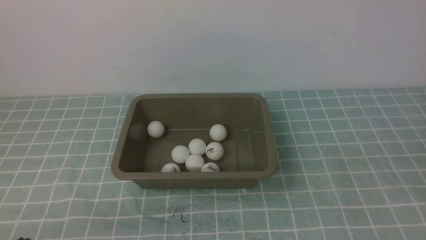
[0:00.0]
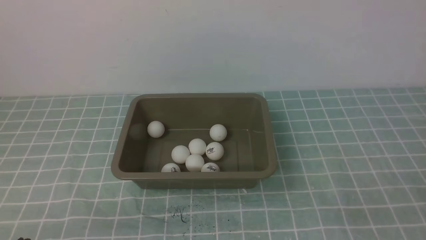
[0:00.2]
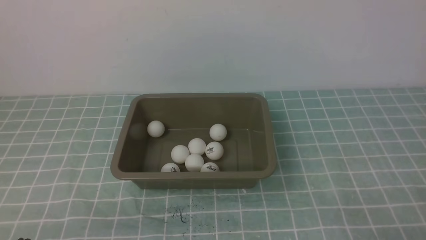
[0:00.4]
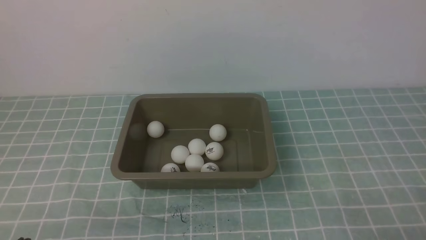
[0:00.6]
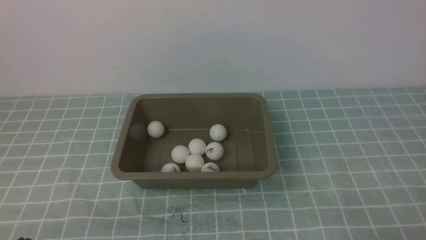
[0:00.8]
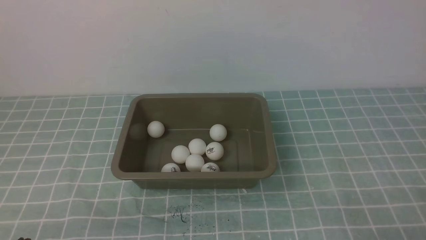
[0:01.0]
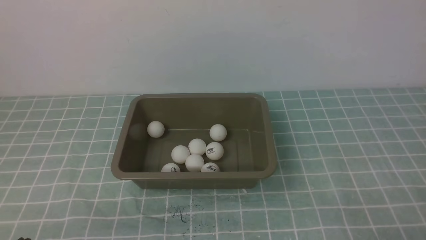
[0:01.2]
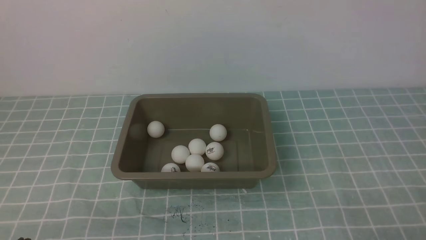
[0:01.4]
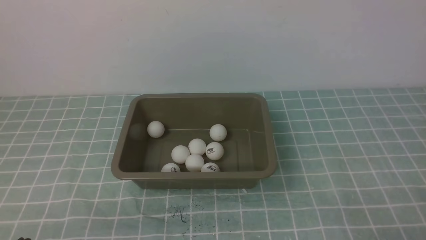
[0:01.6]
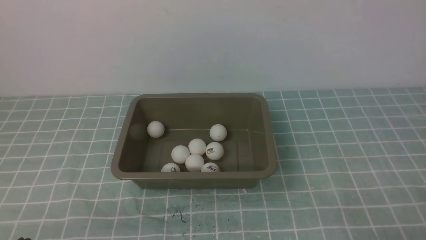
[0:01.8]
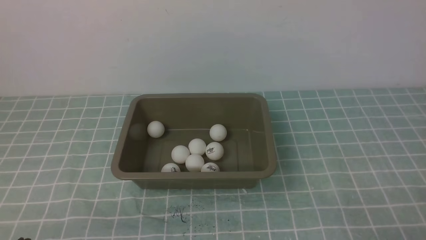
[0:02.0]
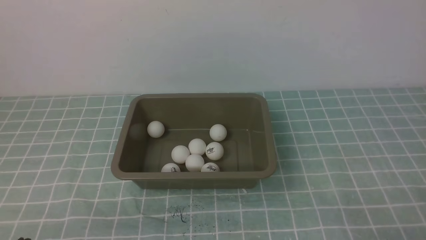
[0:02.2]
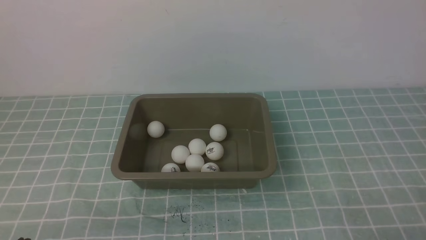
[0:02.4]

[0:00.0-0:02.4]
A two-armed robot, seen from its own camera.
1.2 to 2.4 s: Both grippers stay put.

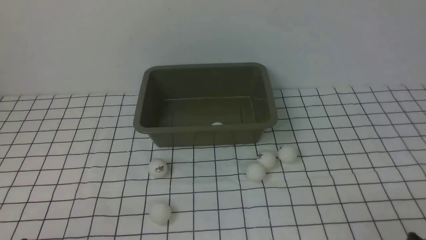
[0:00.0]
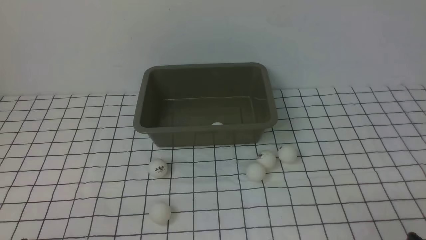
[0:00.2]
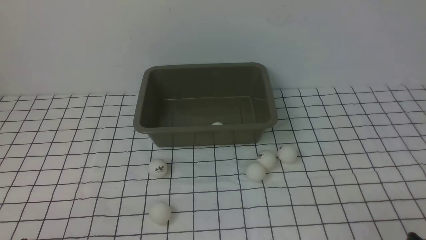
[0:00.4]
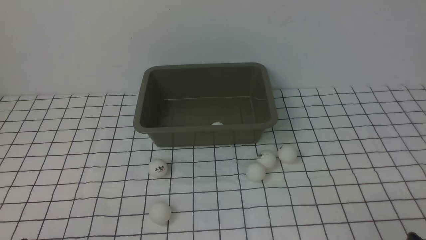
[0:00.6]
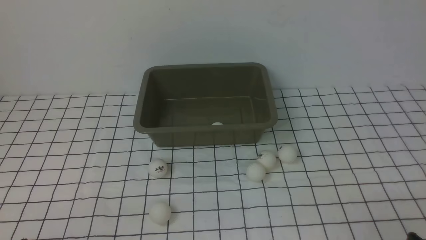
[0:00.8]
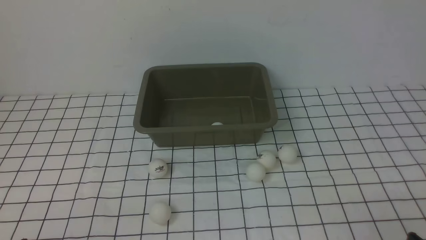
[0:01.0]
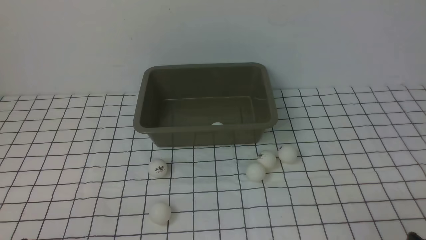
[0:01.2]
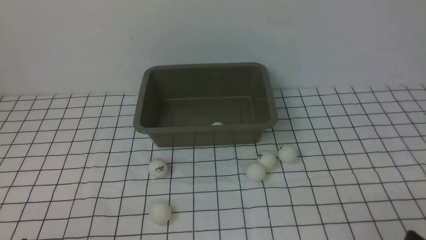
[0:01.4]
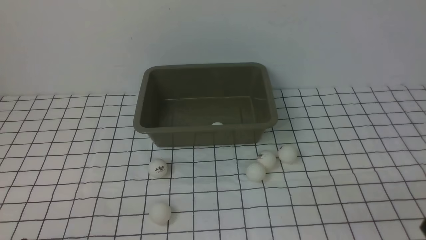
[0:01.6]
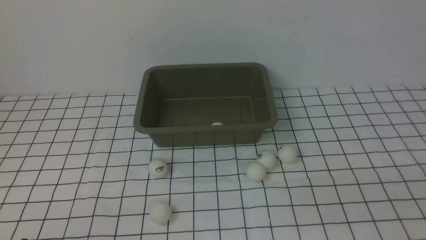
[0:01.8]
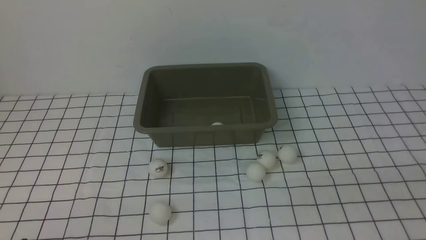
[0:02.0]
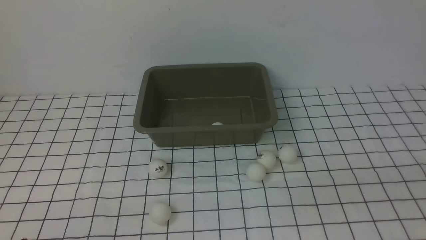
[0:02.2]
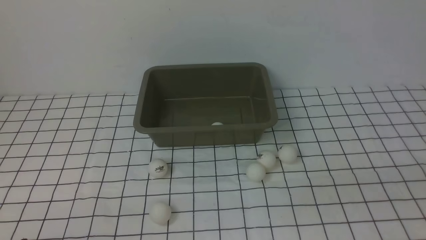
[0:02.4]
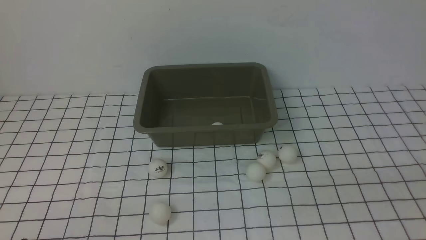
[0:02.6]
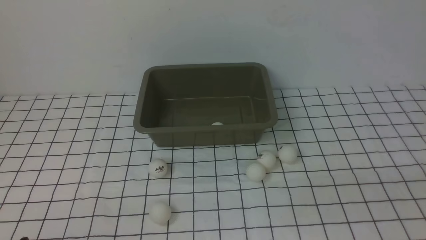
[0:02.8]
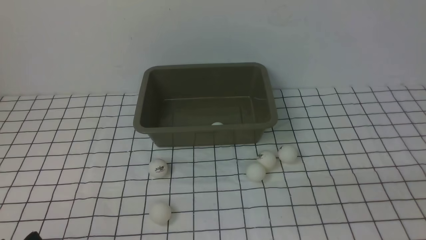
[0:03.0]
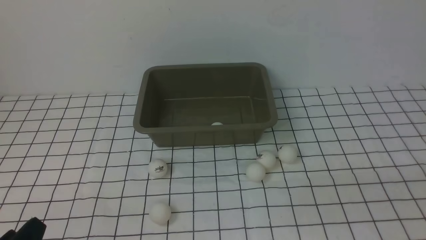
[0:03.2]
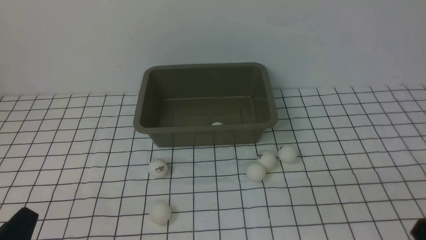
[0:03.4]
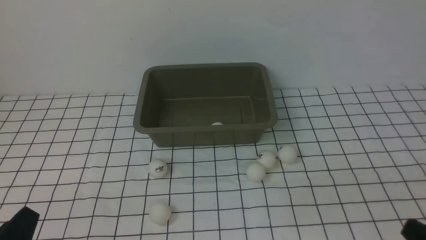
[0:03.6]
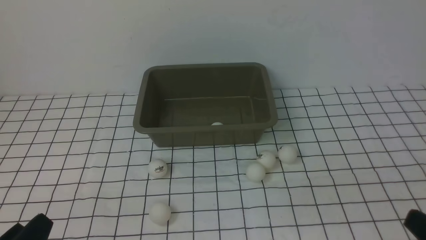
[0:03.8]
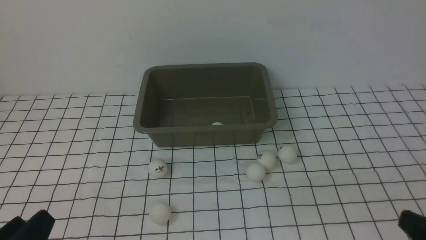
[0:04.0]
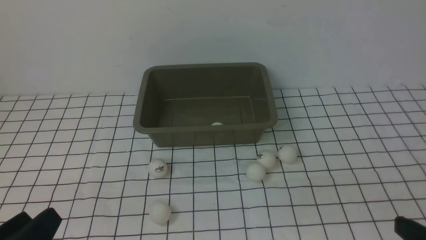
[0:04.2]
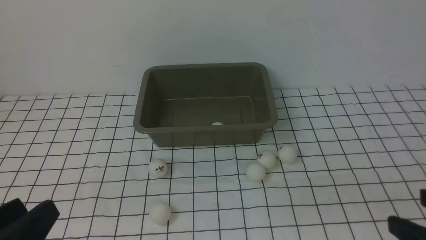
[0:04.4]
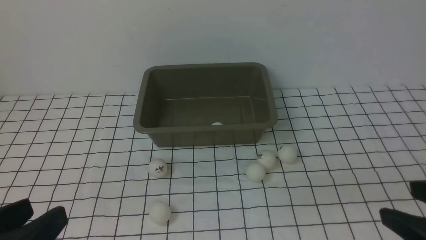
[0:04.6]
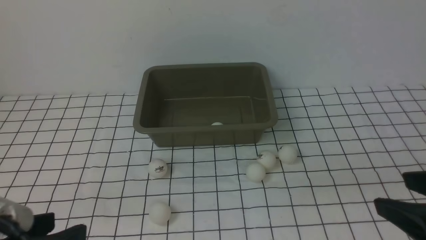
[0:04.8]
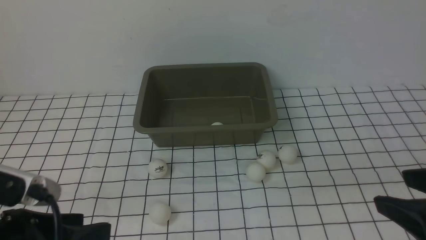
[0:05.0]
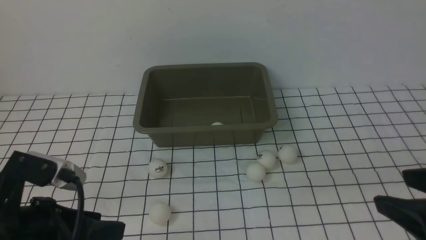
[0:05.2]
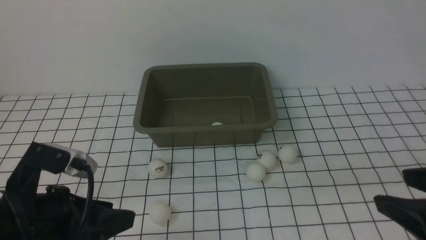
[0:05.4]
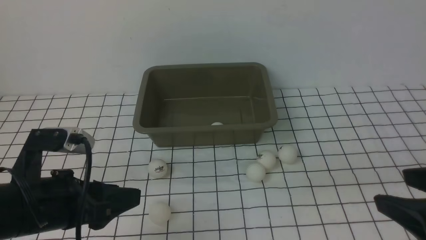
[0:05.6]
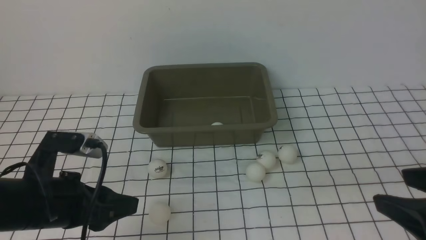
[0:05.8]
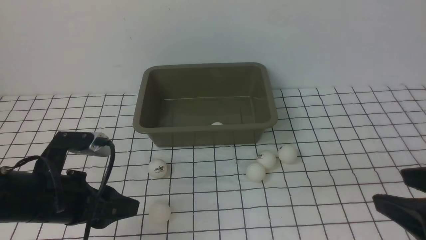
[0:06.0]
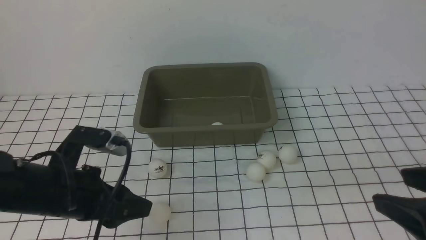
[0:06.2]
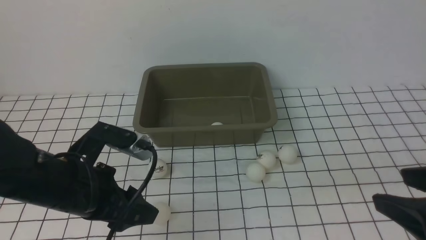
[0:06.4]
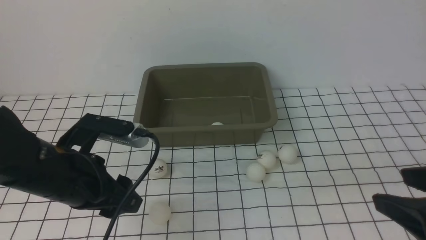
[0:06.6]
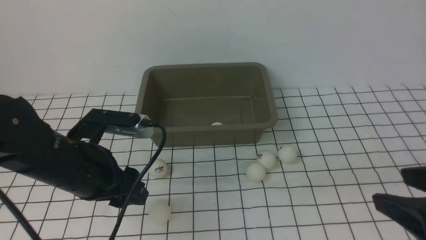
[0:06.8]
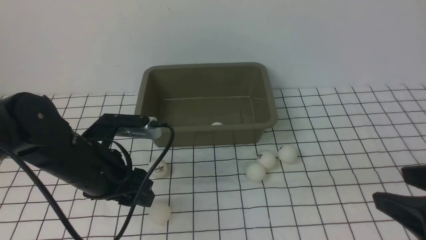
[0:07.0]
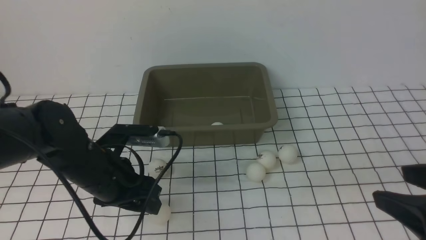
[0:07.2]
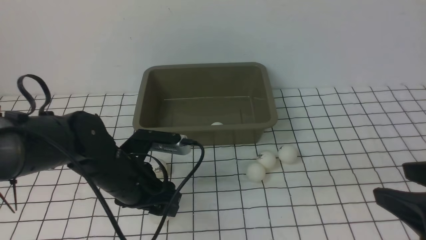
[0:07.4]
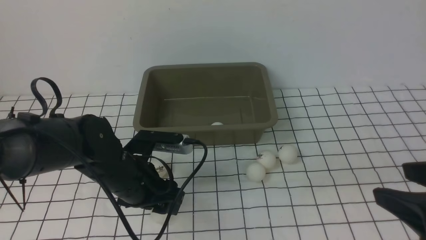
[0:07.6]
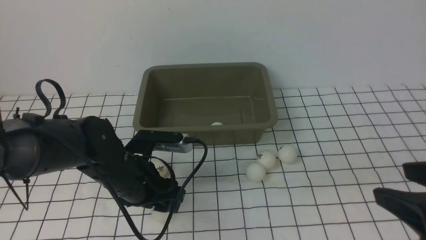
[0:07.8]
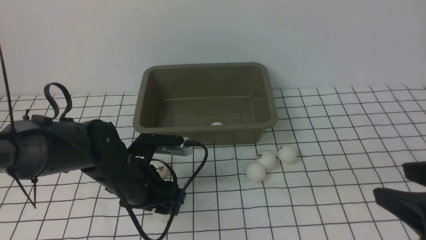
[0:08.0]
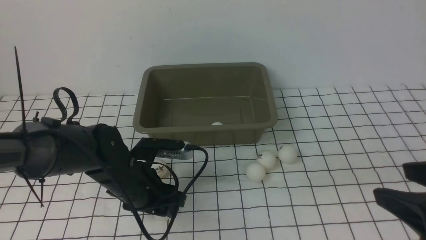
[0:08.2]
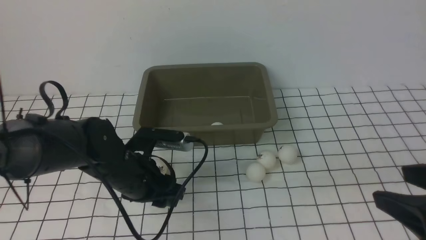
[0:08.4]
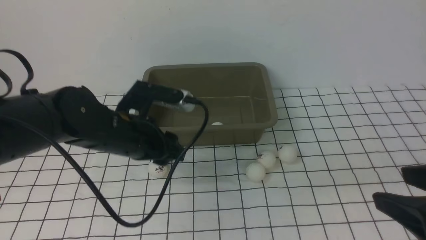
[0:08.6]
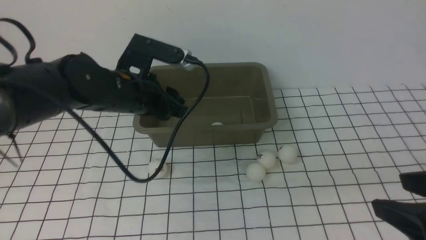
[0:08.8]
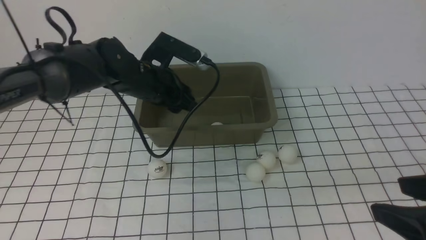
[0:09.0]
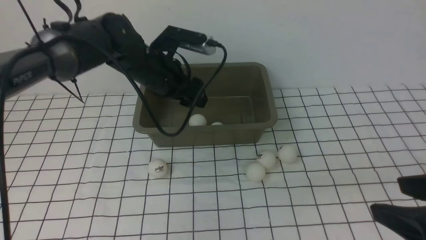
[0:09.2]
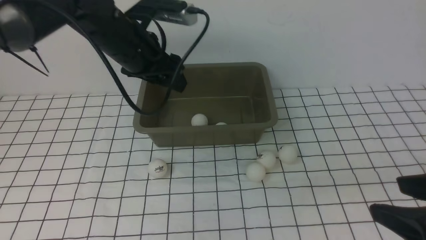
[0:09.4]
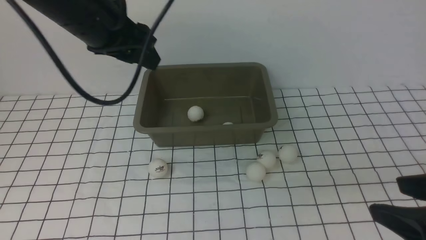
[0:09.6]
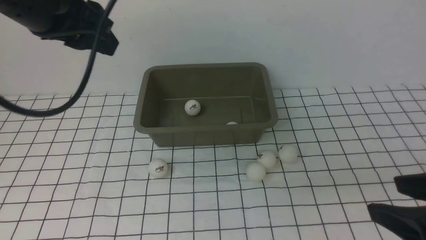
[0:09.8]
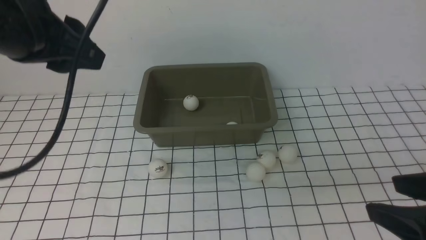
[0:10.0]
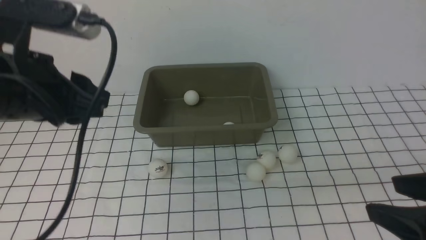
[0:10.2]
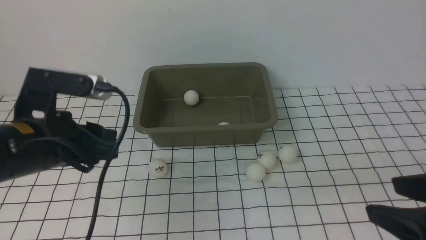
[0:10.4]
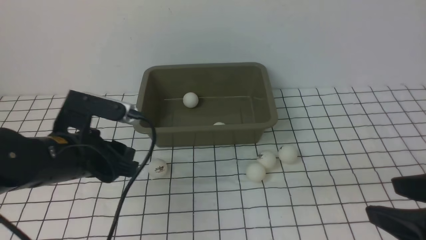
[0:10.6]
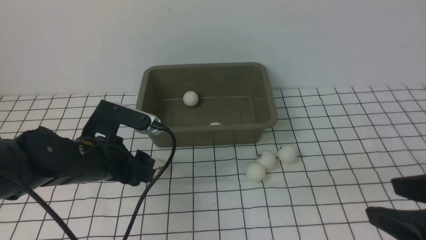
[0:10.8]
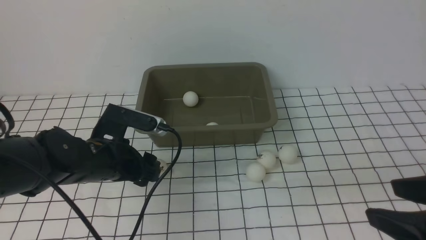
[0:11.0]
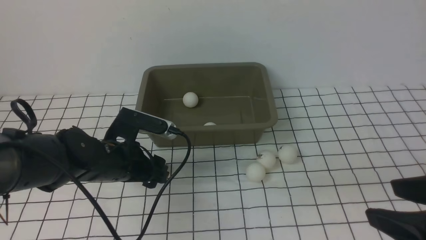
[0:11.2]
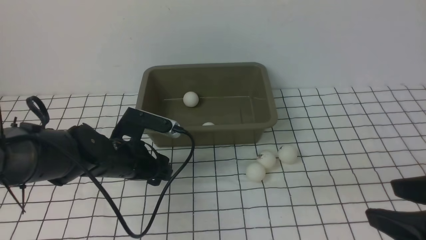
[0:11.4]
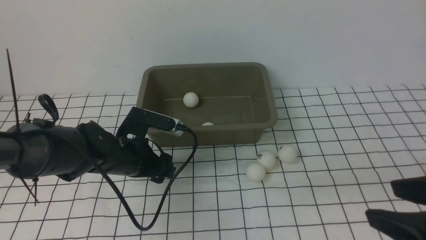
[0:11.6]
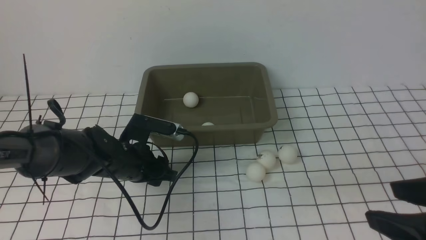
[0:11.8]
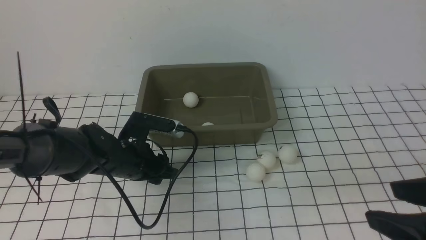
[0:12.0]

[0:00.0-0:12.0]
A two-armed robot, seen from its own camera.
Step, 0.0 to 8.4 s: use the left arm to clamp the table tennis ball closest to it.
Step, 8.8 to 9.4 s: use the left arm to put the table tennis ball into the box.
3.0 to 4.4 s: The left gripper travels upward by approximately 10 cm; the right gripper ends up some 5 cm from where it was.
4.4 to 6.0 s: The left gripper goes some 15 cm forward.
6.0 to 7.6 s: The left gripper moves to the right and forward, roughly 10 cm.
7.6 to 9.0 s: The left gripper shifts roughly 15 cm forward and upward, and closes, then reopens.
9.0 to 10.4 s: The left gripper is displaced backward and to the left by about 20 cm, and closes up.
10.4 to 12.0 s: The left gripper travels downward, forward and to the right by about 15 cm, and opens, then closes again.

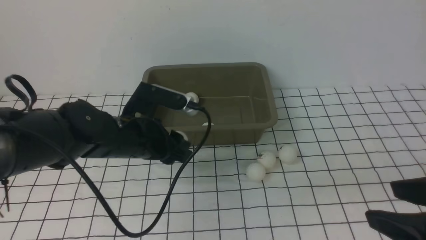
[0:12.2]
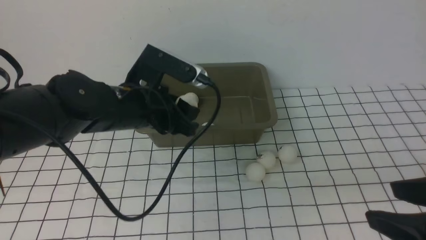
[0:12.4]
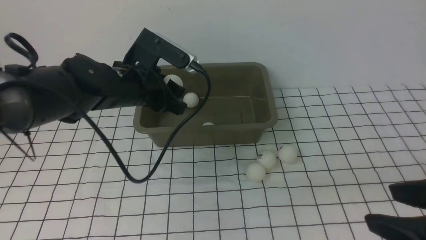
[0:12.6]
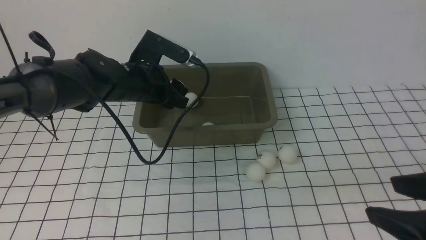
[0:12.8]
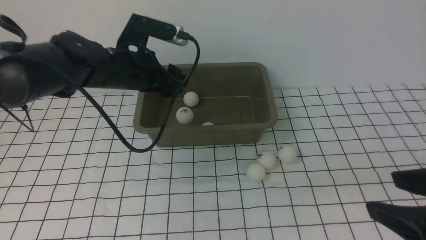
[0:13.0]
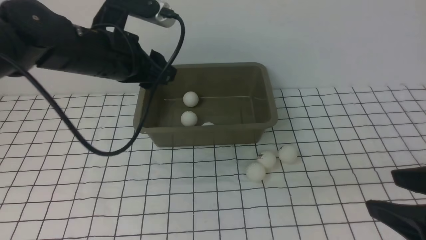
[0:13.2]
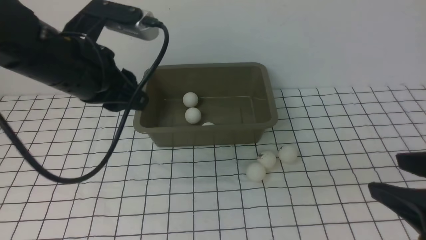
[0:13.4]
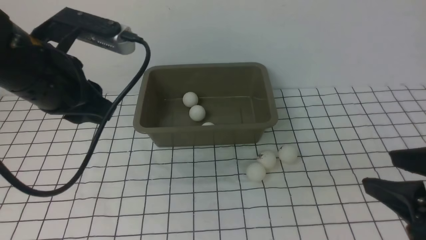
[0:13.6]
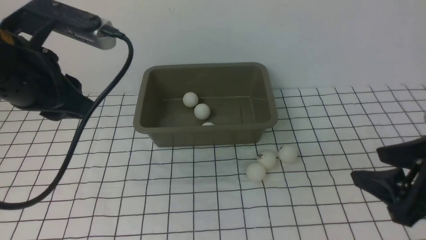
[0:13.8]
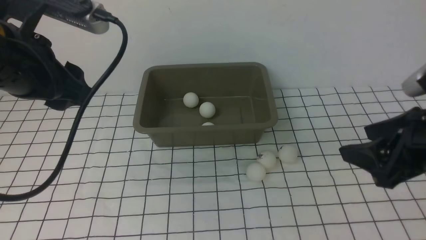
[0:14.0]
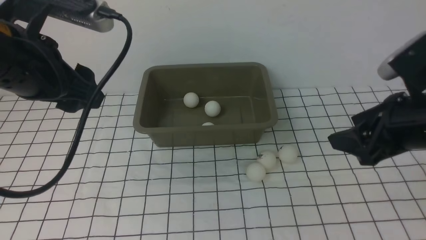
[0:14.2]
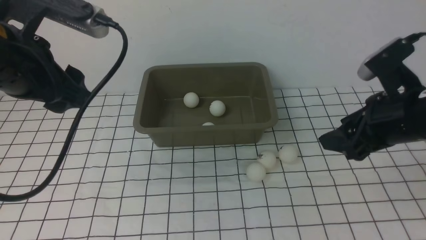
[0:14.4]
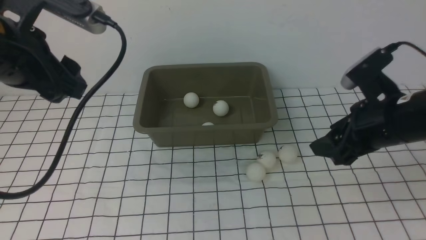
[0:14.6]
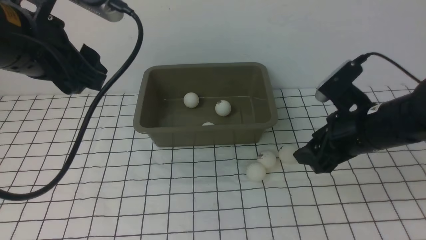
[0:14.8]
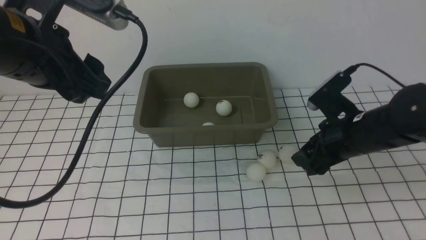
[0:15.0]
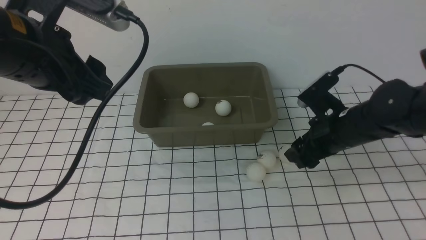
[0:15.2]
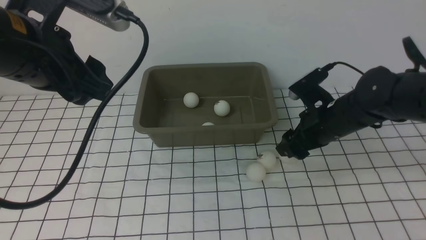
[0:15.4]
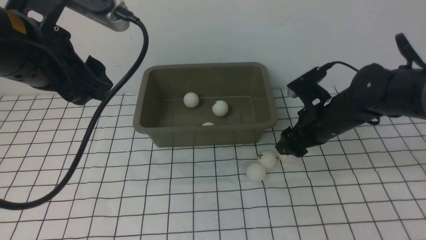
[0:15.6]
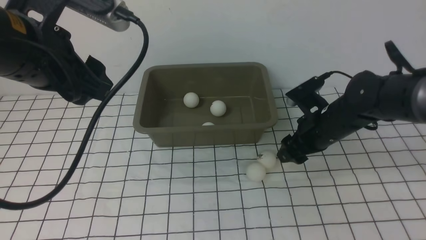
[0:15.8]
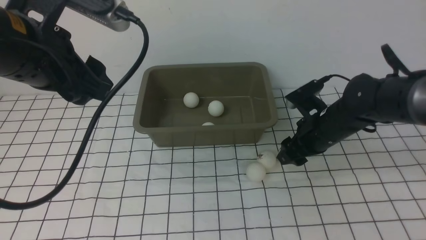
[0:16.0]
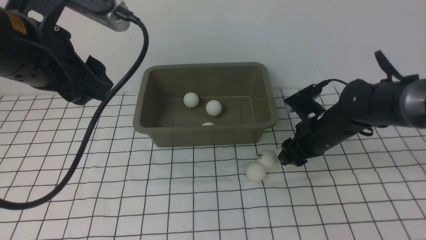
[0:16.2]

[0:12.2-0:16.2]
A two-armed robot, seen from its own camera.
Step, 12.4 to 13.0 s: use the left arm to put the table tennis ball into the box.
12.2 to 13.6 s: The right gripper moves forward, some 5 cm; the left gripper heads upward and to the left, covering approximately 15 cm, and opens and closes again.
13.6 to 14.8 s: The right gripper goes about 20 cm forward and downward, while the left gripper opens.
14.8 to 16.2 s: The right gripper heads forward, covering about 5 cm, and closes its fingers.
